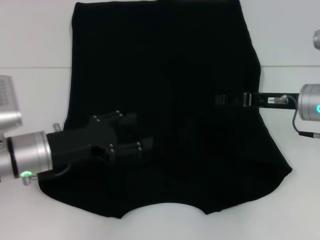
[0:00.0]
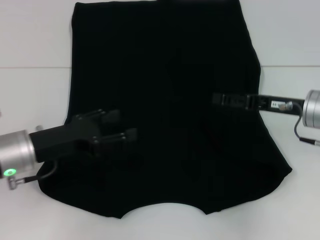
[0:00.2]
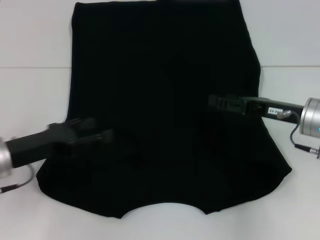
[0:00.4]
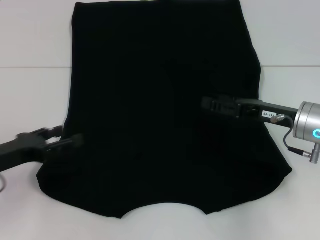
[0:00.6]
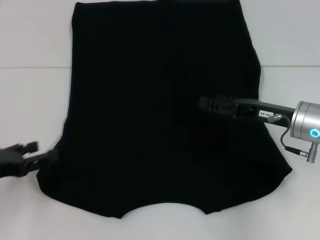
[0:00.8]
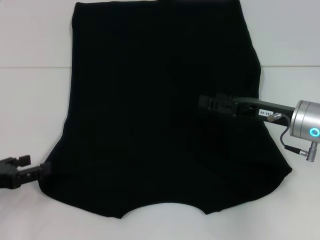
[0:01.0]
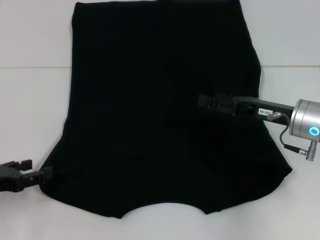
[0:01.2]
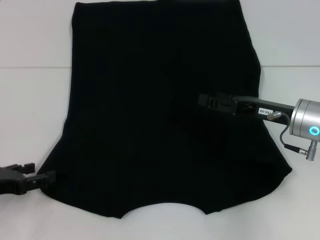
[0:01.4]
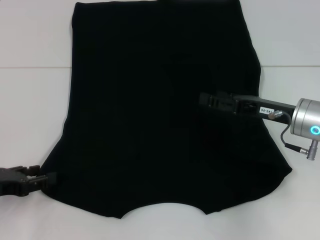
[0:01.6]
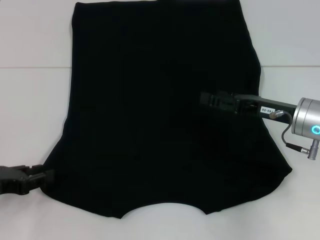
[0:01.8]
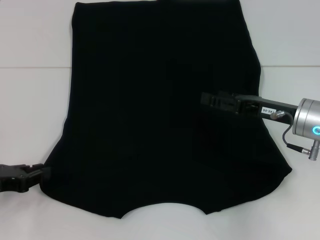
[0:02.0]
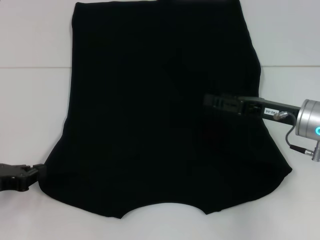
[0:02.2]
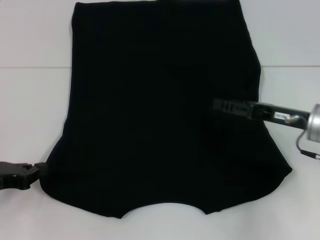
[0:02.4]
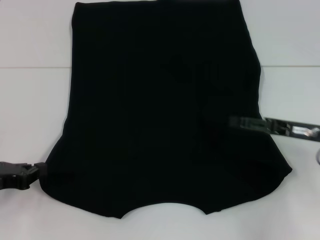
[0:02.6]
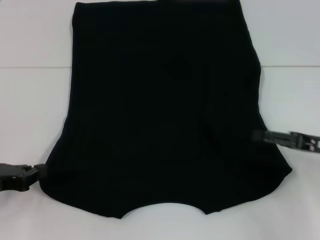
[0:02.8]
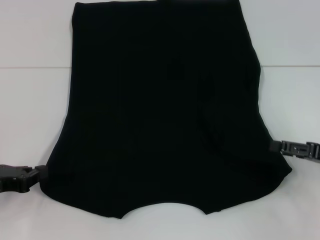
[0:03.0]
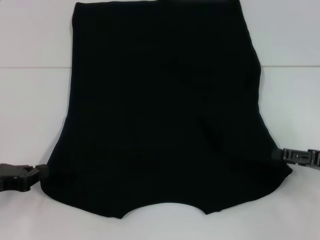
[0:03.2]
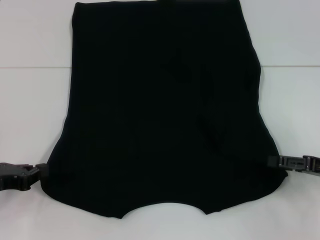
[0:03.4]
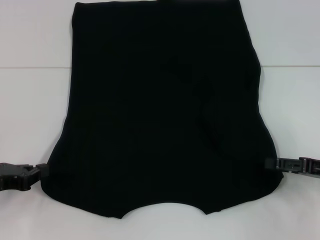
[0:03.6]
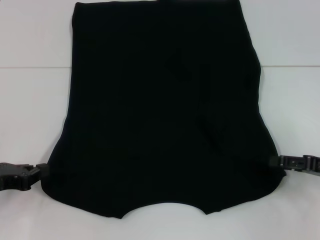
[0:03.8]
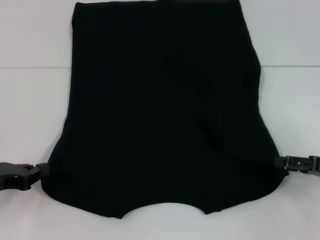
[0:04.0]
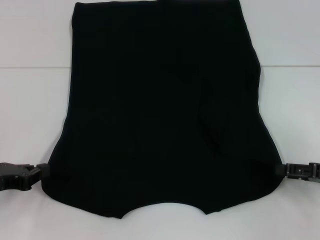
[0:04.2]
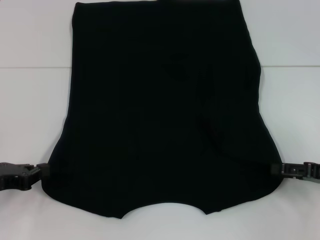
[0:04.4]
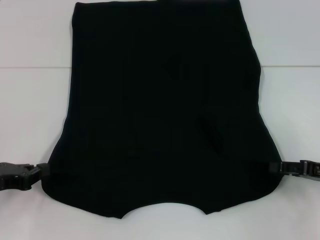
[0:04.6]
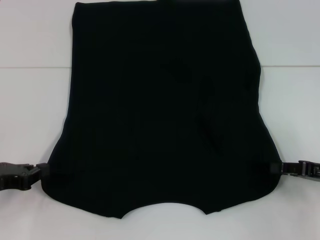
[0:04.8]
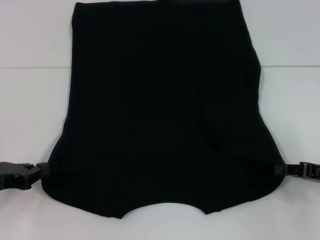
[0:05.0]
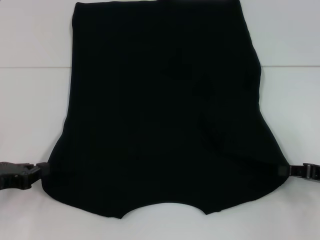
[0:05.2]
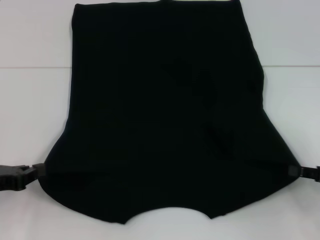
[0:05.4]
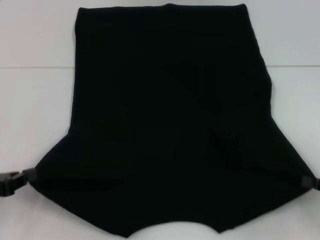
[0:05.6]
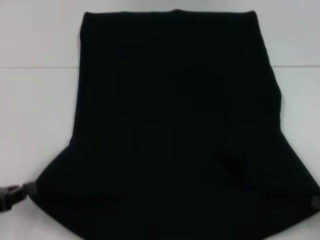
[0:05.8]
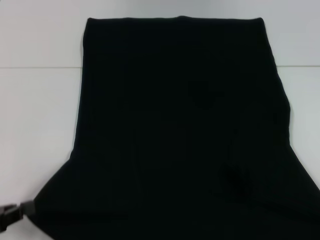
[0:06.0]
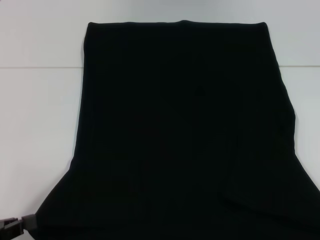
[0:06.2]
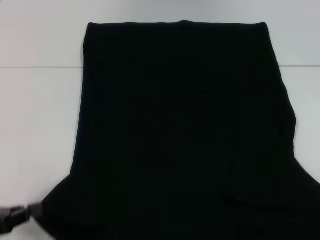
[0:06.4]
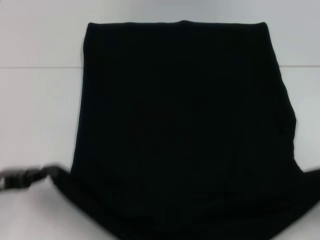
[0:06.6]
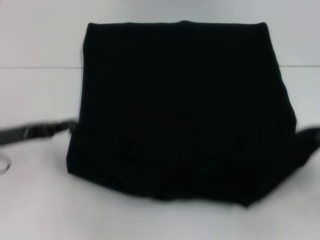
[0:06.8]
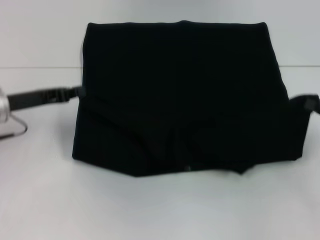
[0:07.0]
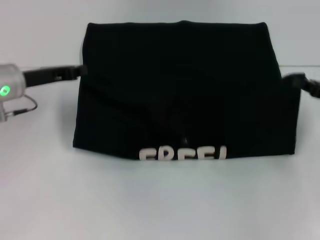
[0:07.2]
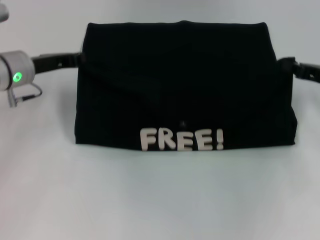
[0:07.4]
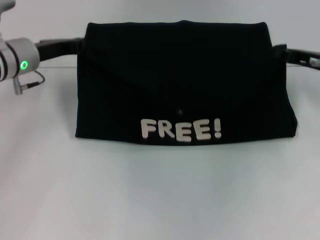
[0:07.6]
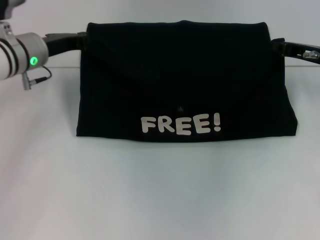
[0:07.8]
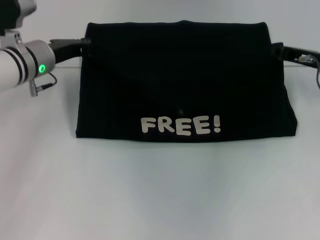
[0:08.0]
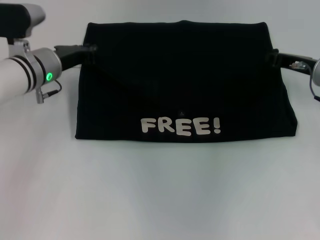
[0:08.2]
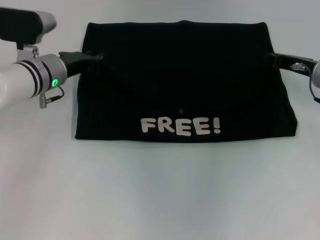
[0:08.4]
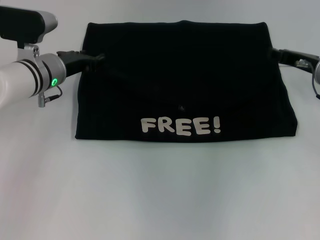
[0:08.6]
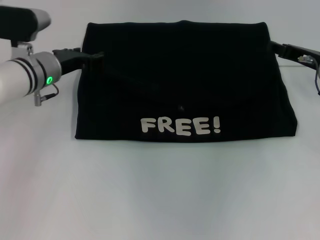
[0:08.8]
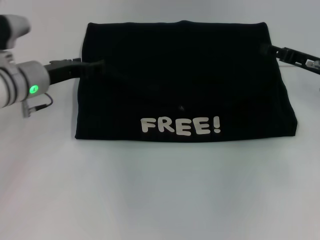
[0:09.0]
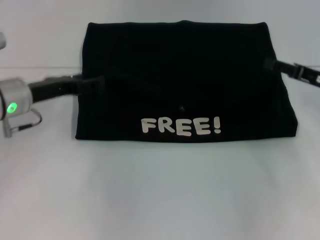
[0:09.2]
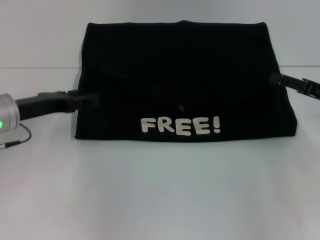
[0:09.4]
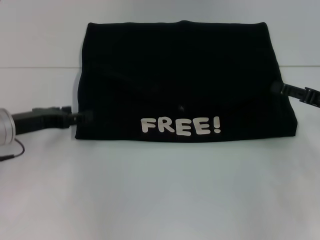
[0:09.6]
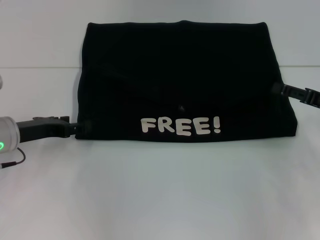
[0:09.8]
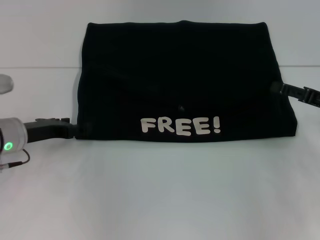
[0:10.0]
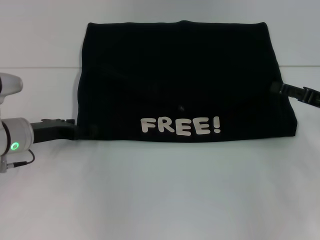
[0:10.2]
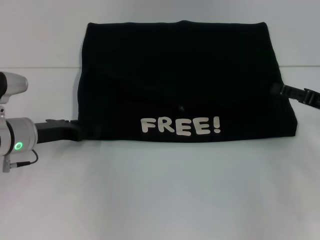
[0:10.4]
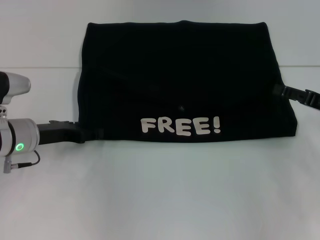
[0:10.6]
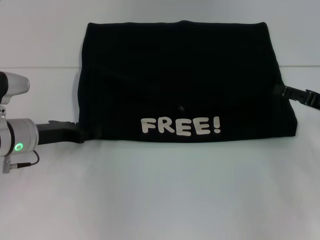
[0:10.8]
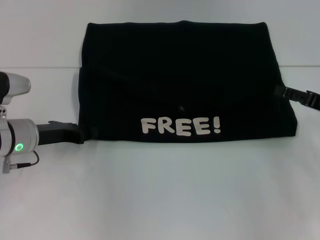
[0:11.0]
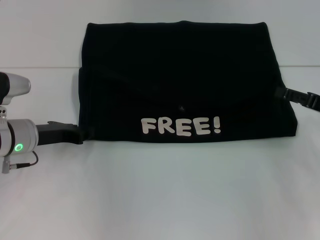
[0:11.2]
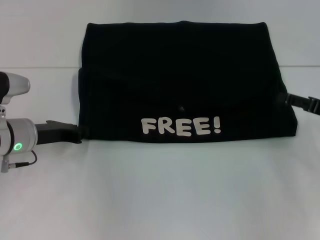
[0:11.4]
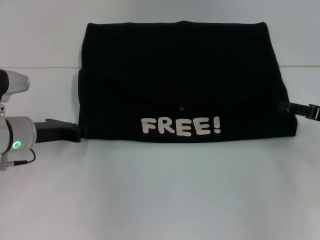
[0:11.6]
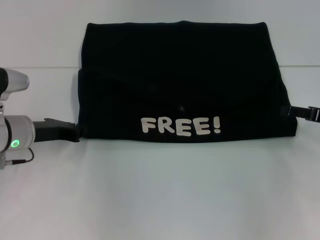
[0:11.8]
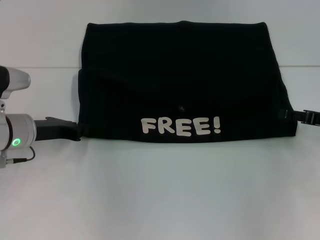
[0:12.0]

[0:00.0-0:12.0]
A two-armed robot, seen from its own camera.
Step, 0:00.0 to 0:03.2: Grab the bottom left corner with your left hand.
Step, 0:03.4 to 0:05.2: Grab the bottom right corner with your right hand.
Step, 0:05.4 to 0:09.0: Fold the clothes with your left hand.
Step, 0:05.4 to 0:09.0: Fold the clothes with your right hand.
0:00.0 to 0:01.6: The right gripper opens up; the left gripper travels to the left and backward by approximately 15 cm.
0:01.6 to 0:03.0: The left gripper closes. The right gripper travels to the right and backward by some 10 cm.
0:03.0 to 0:04.4: The grippers make only small movements.
0:04.4 to 0:06.0: The left gripper travels backward by some 10 cm, while the right gripper moves backward, roughly 15 cm, and closes.
0:06.0 to 0:07.6: The grippers both shift forward by approximately 25 cm.
0:07.6 to 0:09.0: The right gripper opens its fingers; the left gripper opens its fingers.
0:09.0 to 0:10.4: Both grippers travel together backward, about 5 cm.
0:10.4 to 0:12.0: The left gripper closes up.

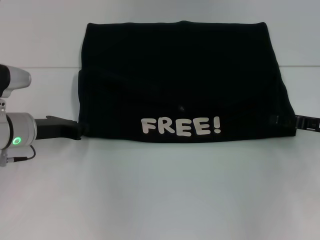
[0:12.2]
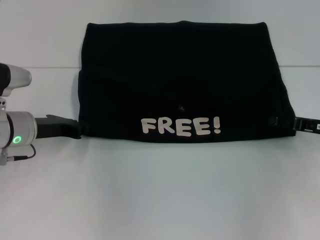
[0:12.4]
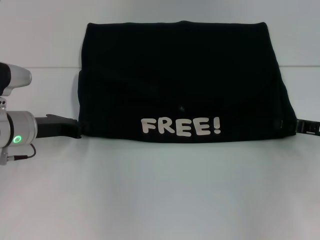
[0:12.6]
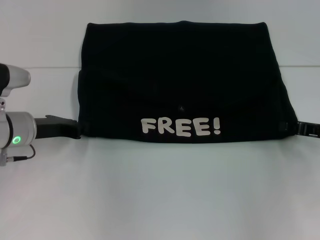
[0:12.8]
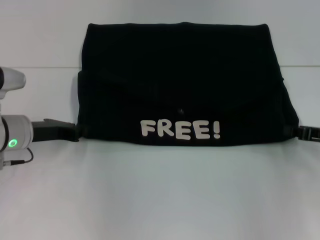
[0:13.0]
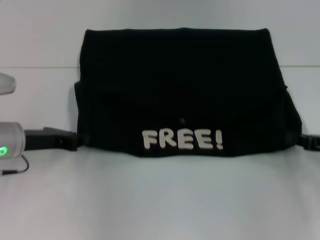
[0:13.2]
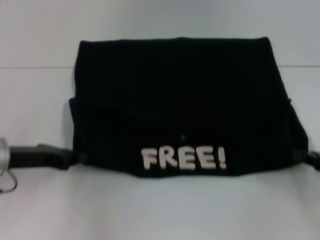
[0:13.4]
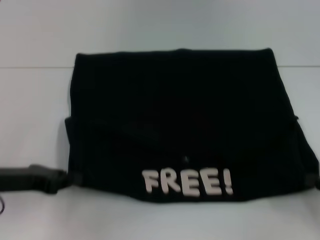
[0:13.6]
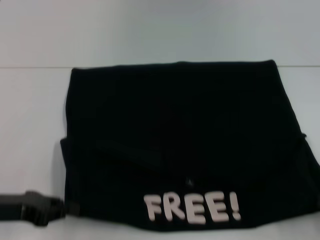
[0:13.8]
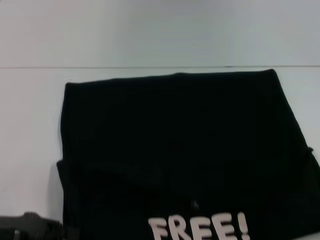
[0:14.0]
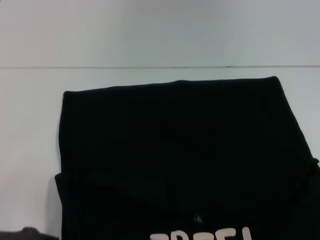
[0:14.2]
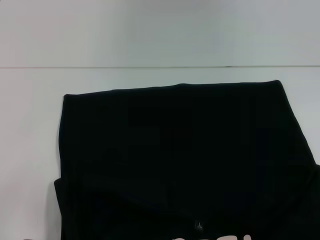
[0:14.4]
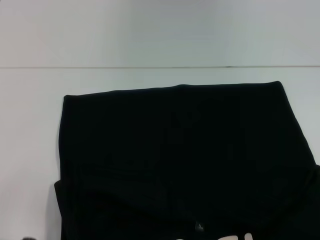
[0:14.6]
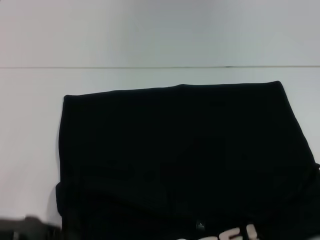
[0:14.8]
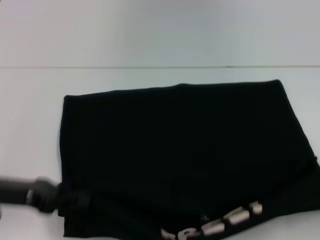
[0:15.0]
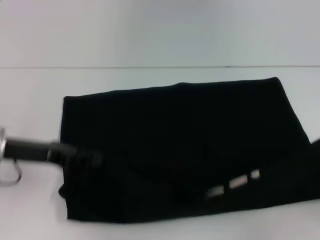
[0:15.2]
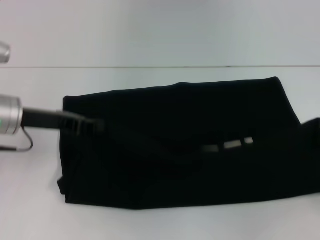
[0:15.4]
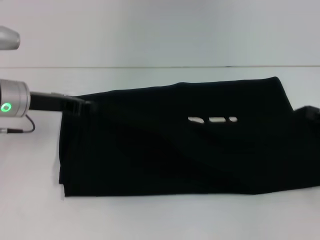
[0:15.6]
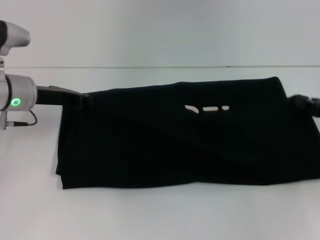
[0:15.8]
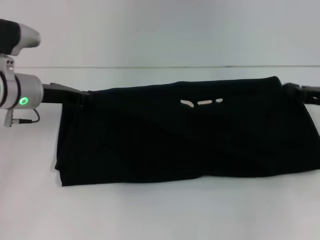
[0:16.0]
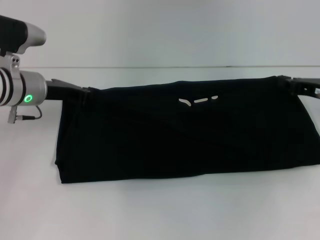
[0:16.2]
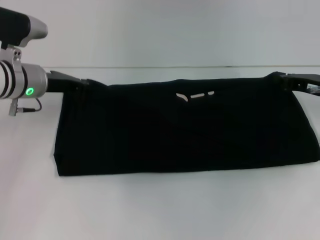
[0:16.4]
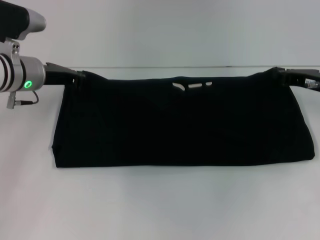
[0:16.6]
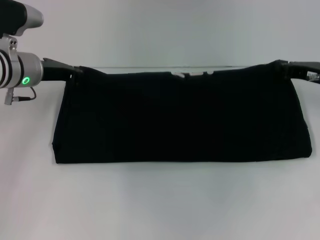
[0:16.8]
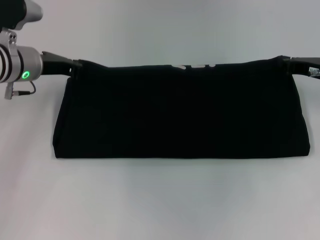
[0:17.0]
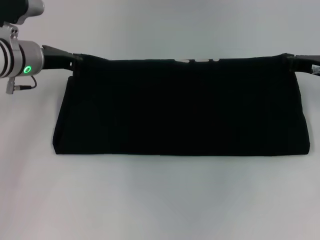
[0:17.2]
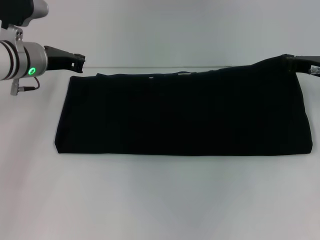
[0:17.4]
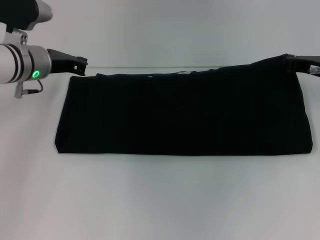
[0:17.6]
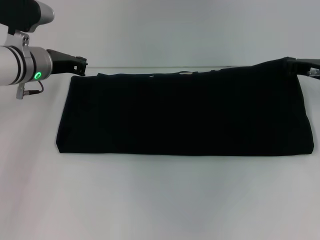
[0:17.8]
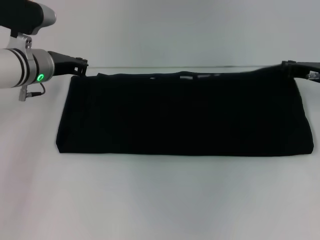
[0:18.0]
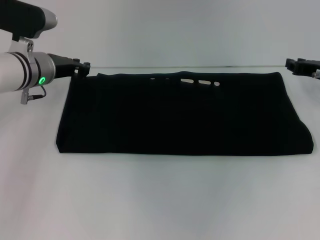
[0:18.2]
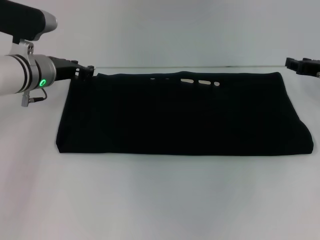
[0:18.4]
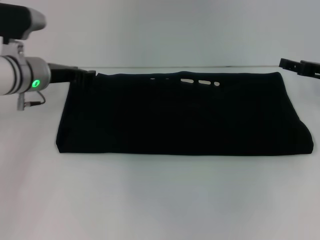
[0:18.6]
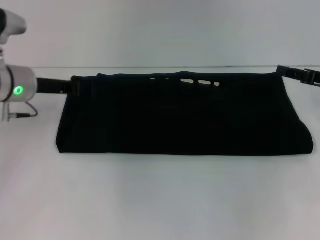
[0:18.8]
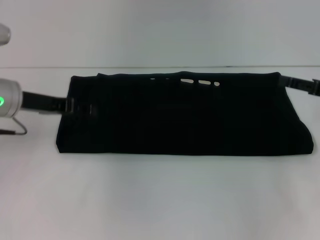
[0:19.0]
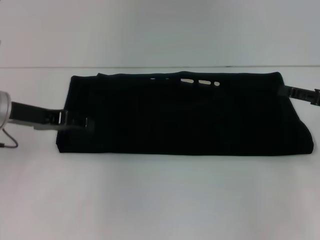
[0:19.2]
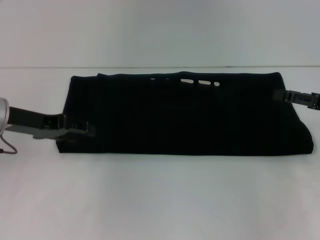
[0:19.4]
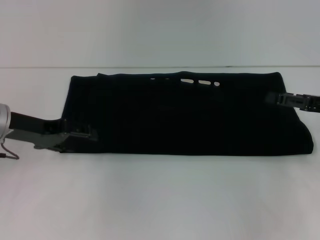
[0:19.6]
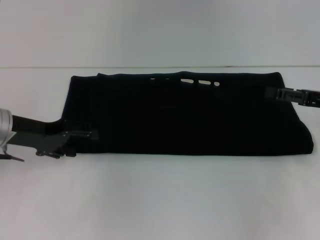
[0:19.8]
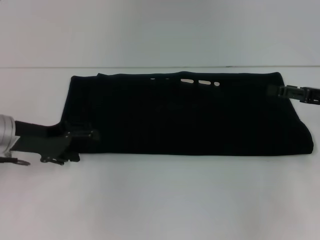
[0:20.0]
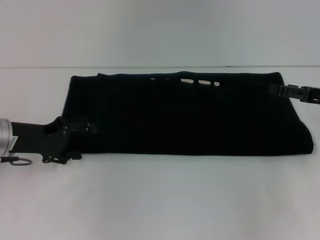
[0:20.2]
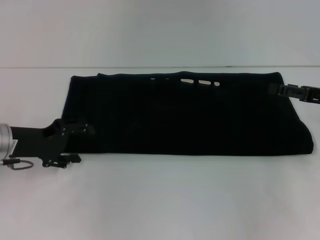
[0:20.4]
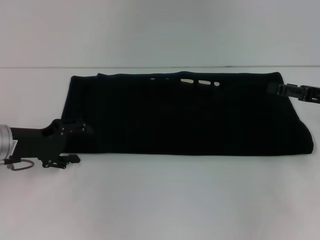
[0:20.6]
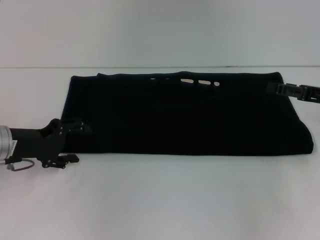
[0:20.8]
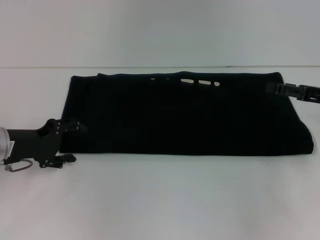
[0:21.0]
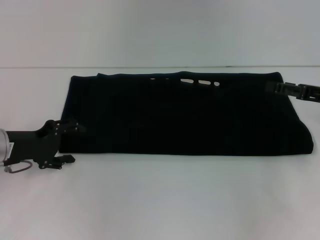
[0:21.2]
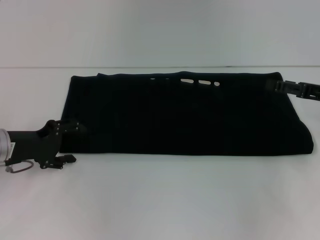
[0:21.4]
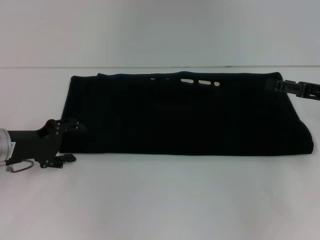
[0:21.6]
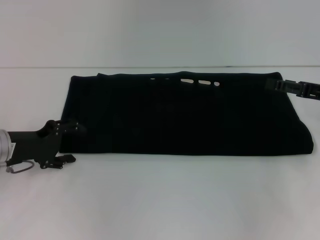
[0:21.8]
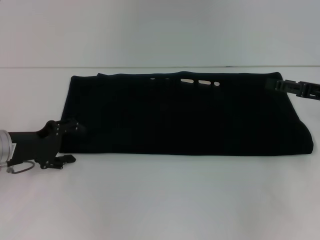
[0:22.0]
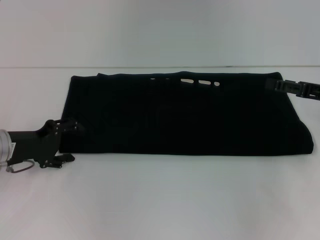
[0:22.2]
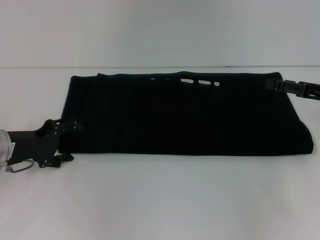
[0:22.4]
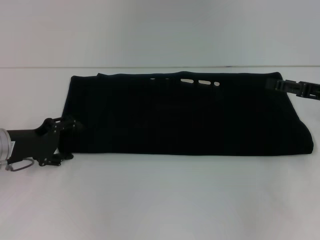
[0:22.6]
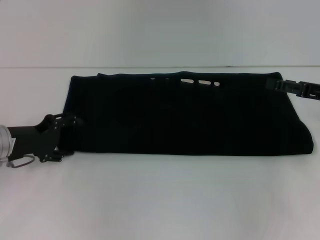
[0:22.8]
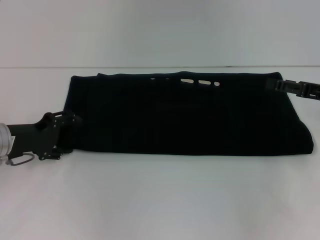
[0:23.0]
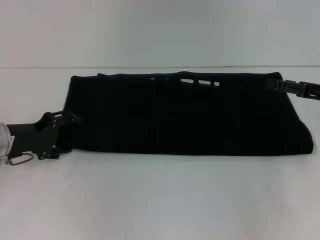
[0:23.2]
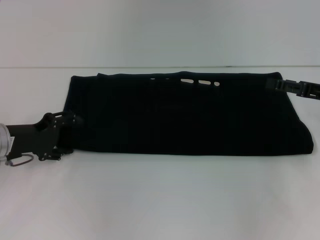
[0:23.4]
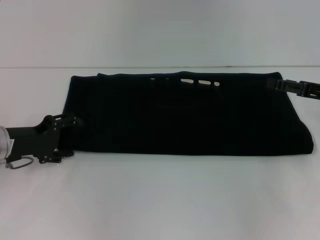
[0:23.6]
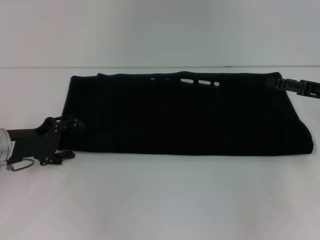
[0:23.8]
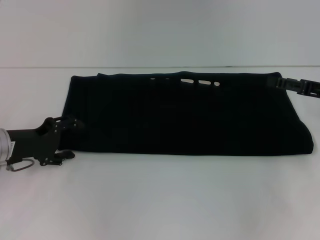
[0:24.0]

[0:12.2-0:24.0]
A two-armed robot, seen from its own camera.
Step, 0:12.2 to 0:14.6: Pull the clothes with your left hand.
Step, 0:12.2 to 0:14.6: Pull the clothes with your right hand.
Step, 0:14.8 to 0:18.0: Fold the clothes with your right hand.
0:12.2 to 0:13.6: The grippers both shift backward by some 10 cm. The right gripper closes up.
0:13.6 to 0:15.2: The left gripper reaches about 10 cm backward, then returns, while the right gripper travels backward and back again, about 10 cm each way.
0:15.2 to 0:16.6: The left gripper shifts approximately 10 cm forward. Meanwhile the right gripper moves forward and to the left, about 20 cm.
0:16.6 to 0:18.2: The grippers stay close to where they were, moving slightly.
0:18.2 to 0:19.6: The left gripper shifts approximately 10 cm backward and to the left, and opens its fingers. The right gripper shifts about 10 cm backward, and opens up.
0:19.6 to 0:21.0: The left gripper is displaced downward by about 5 cm.
0:21.0 to 0:22.6: Neither gripper changes place.
0:22.6 to 0:24.0: The two grippers keep their place.
